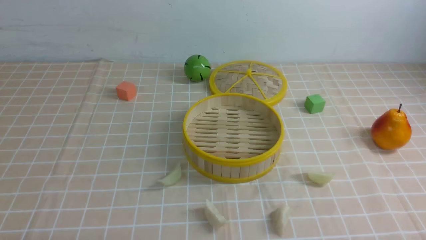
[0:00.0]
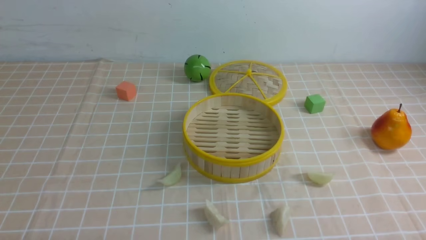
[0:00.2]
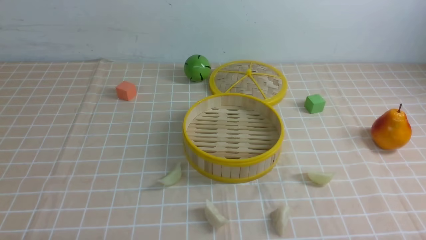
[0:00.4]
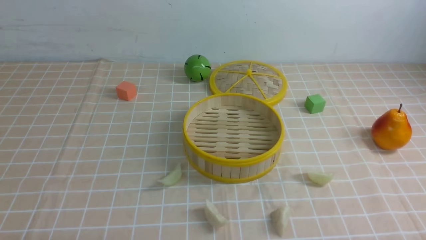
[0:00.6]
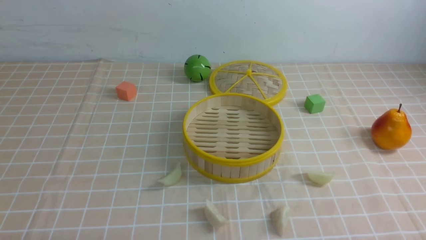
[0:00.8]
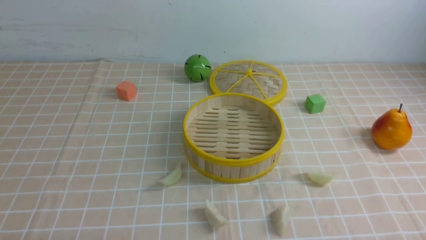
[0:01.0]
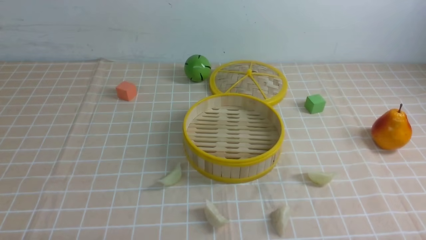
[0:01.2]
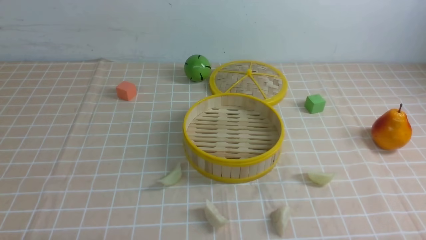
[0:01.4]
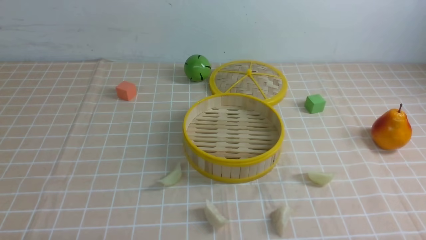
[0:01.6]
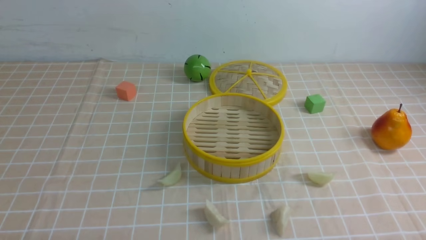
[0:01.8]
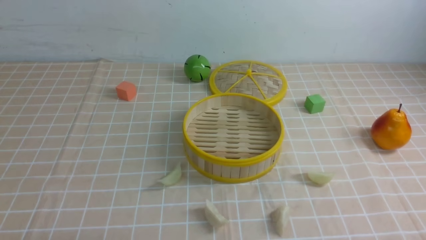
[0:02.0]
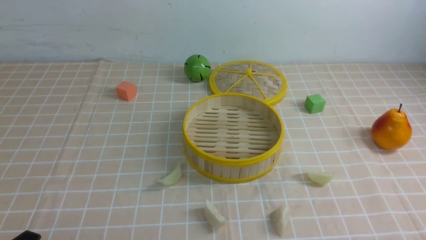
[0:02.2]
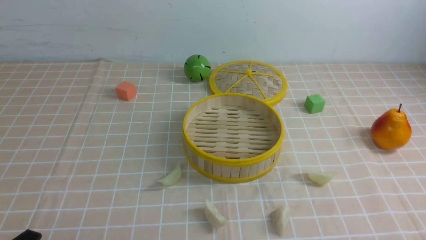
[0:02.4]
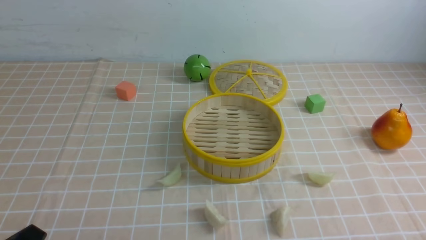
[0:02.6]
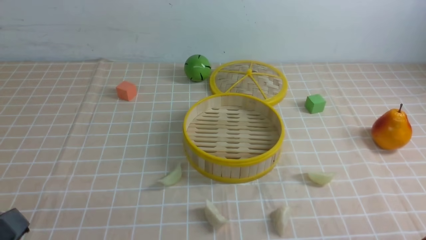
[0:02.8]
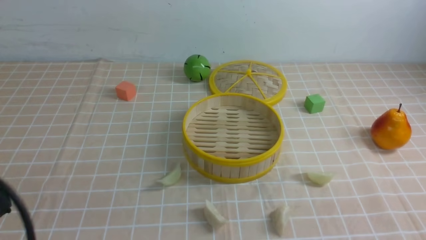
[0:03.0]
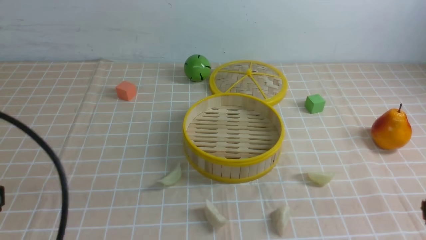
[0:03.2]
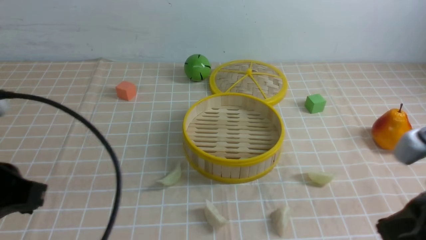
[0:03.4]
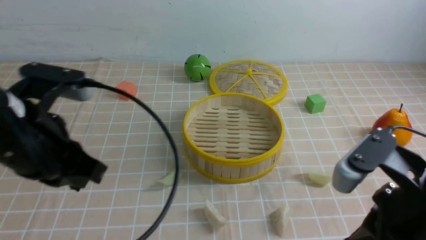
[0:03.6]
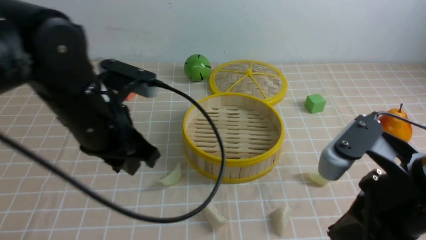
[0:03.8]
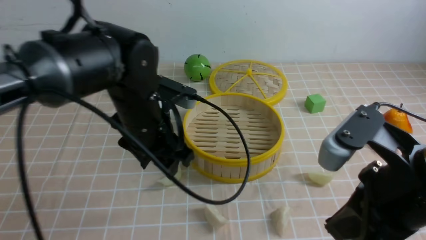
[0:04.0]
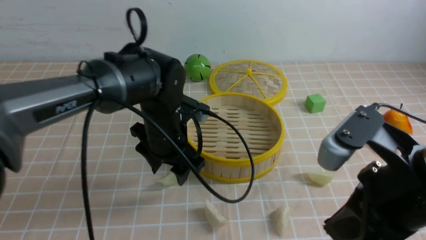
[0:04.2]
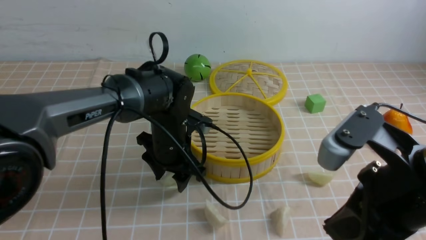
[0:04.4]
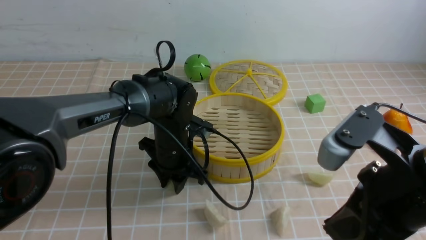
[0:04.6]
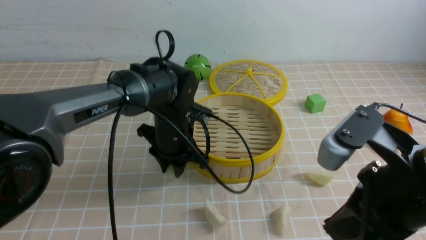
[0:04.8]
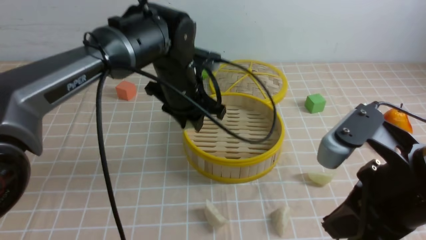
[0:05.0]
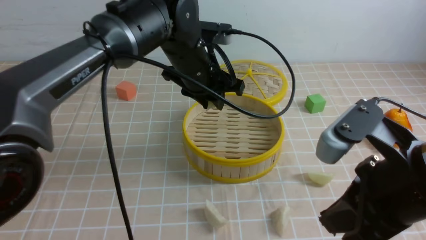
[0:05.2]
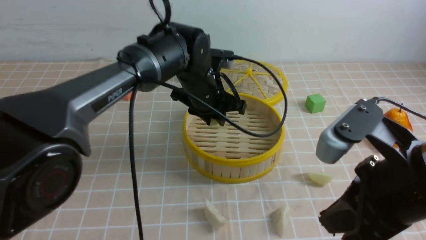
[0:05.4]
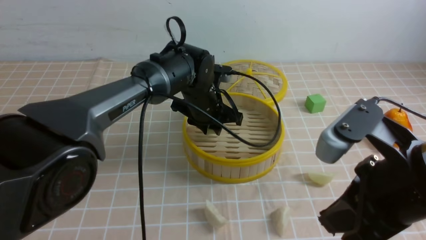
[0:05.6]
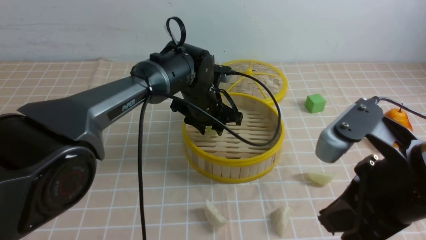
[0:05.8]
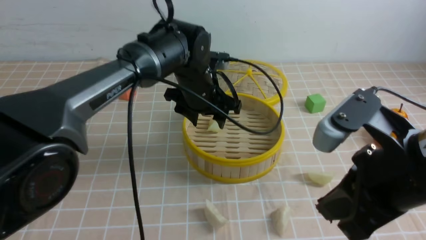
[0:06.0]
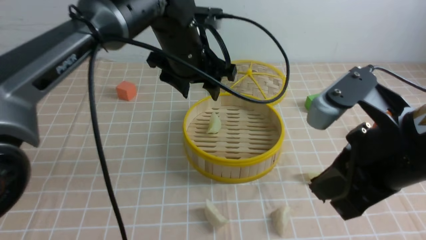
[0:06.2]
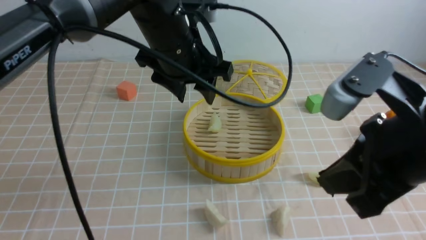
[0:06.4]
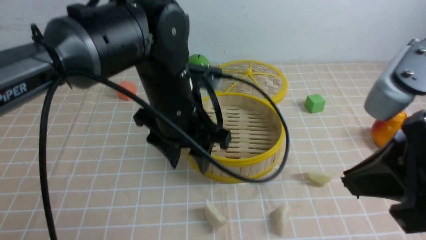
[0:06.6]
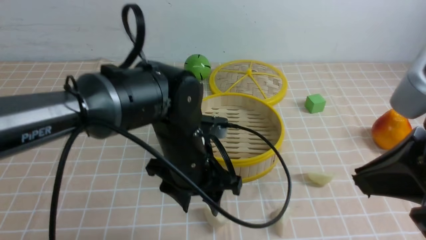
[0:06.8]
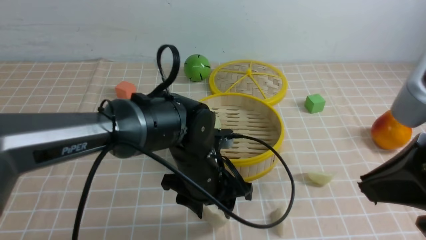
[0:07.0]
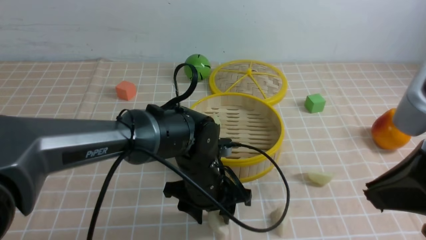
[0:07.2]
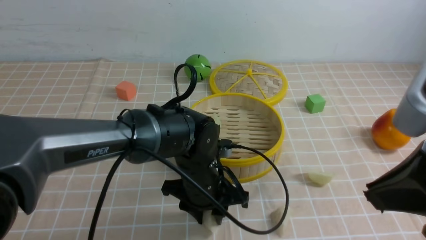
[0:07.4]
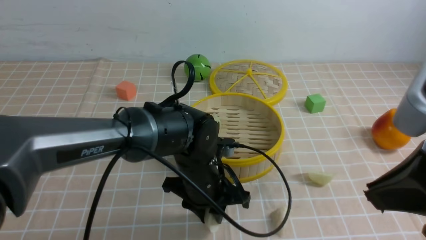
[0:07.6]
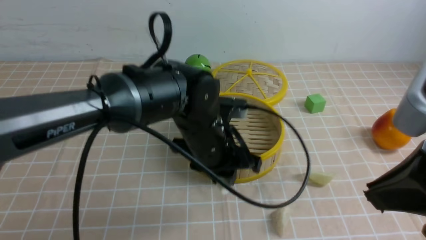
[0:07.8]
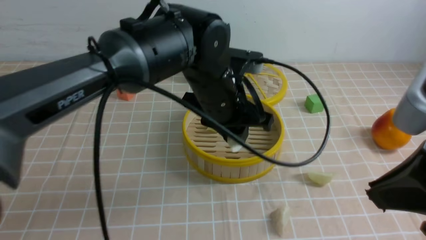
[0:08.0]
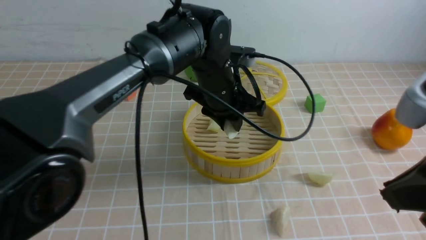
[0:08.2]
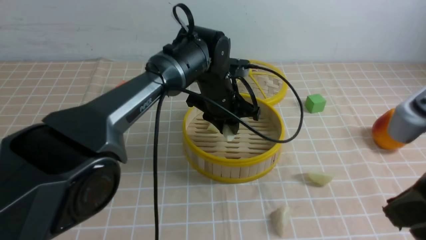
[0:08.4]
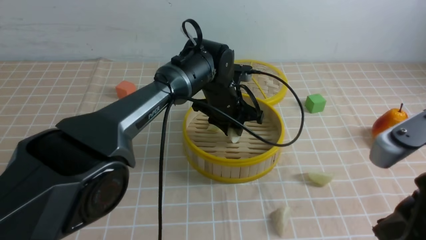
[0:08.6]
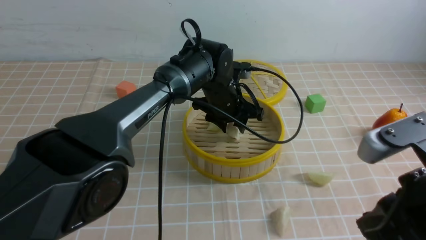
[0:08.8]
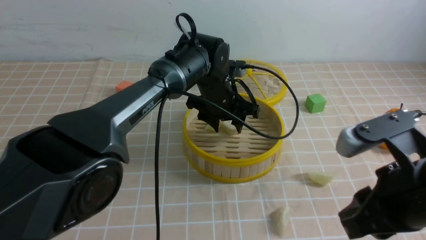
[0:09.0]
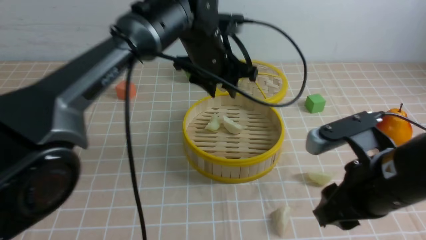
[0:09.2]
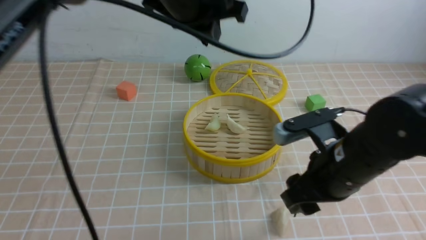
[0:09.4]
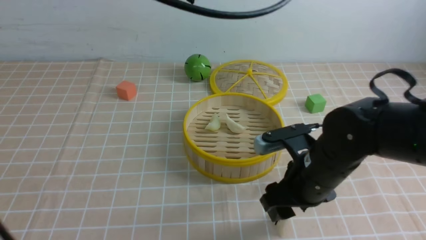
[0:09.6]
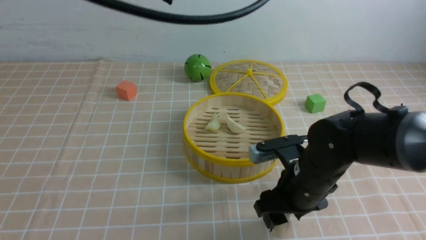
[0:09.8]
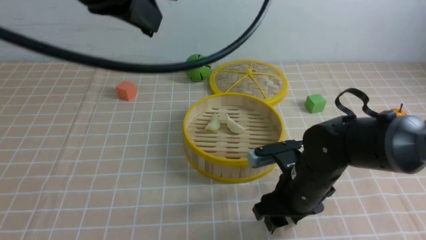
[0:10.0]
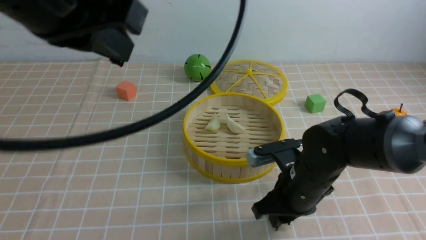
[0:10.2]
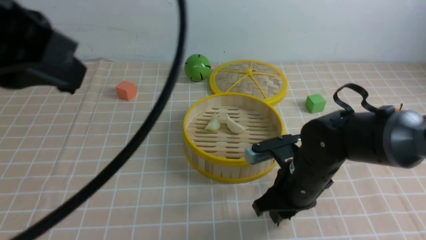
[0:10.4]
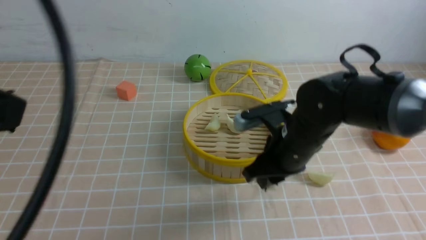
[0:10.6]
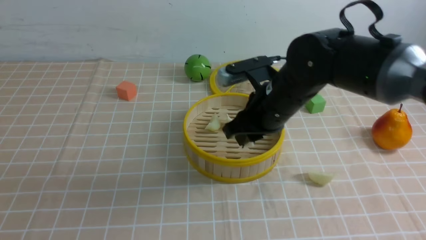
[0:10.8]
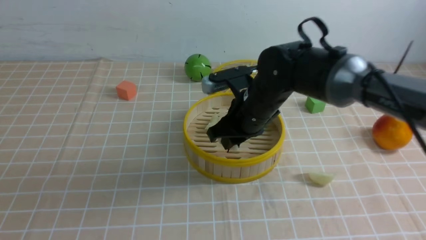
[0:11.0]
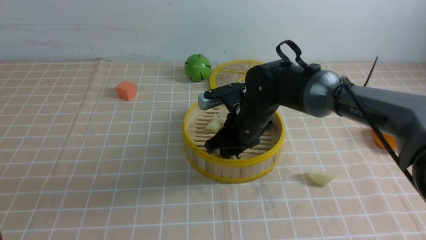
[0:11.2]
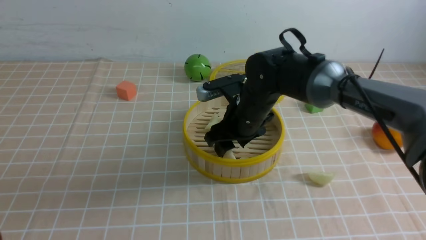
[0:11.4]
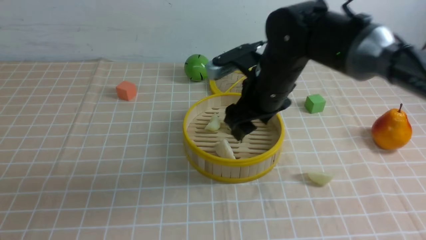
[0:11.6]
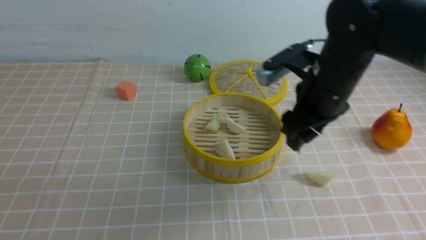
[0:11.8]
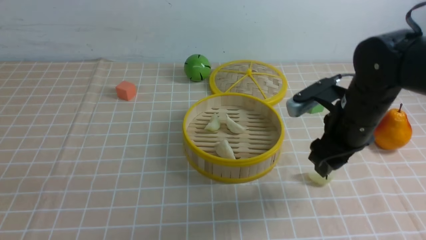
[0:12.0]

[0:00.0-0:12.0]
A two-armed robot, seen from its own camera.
Task of the whole recording: put the dumplings into the steamer on the table with the brown tablecloth.
Step, 0:00.0 to 0:04.6: use the left arm to grab a dumpling.
Step, 0:04.8 to 0:06.0: use the left arm to put the dumpling into the steamer.
Step, 0:06.2 to 0:07.4: use the left arm to grab a dumpling.
Step, 0:07.6 to 0:09.0: use the left arm to put the dumpling into the steamer.
Step, 0:09.2 to 0:10.2: use the right arm to grab a dumpling.
Step, 0:10.4 to 0:11.4: use the right arm to put the dumpling into the steamer.
0:01.6 to 0:03.0: The left gripper is displaced upward by about 15 cm, and closes its fingers.
0:03.0 to 0:04.4: The left gripper heads forward and to the right, covering some 35 cm, and opens up. The right gripper goes approximately 15 cm forward, to the left and upward.
0:04.4 to 0:06.0: The left gripper heads forward and upward, covering roughly 10 cm, and closes and opens again.
0:06.0 to 0:07.6: The left gripper shifts about 15 cm backward and downward, while the right gripper goes approximately 5 cm upward.
0:07.6 to 0:09.0: The left gripper shifts some 15 cm forward; the right gripper shifts some 10 cm downward.
0:09.0 to 0:10.4: The left gripper heads backward, upward and to the left, covering about 40 cm, and closes its fingers, while the right gripper travels forward, downward and to the left by some 20 cm, and opens and closes again.
0:10.4 to 0:12.0: The left gripper travels backward, to the left and downward by some 15 cm. Meanwhile the right gripper shifts roughly 10 cm upward and forward, and opens.

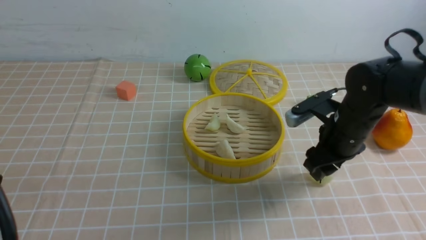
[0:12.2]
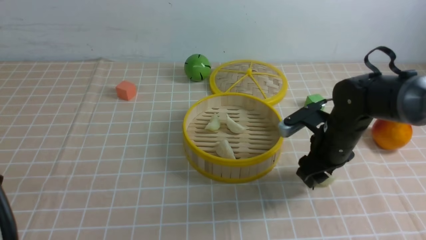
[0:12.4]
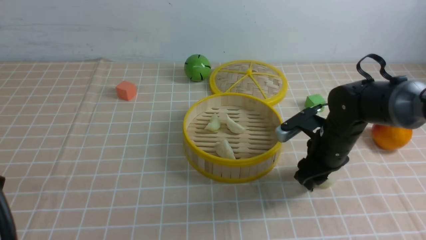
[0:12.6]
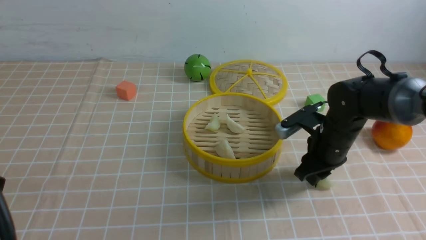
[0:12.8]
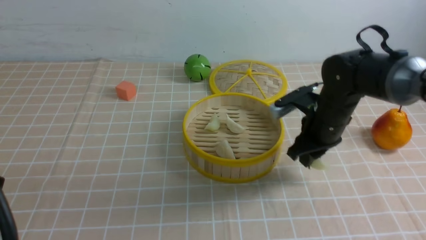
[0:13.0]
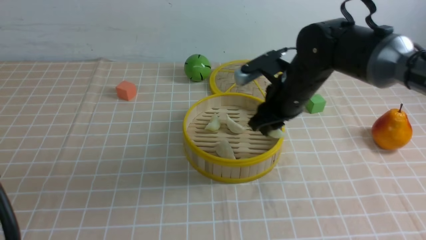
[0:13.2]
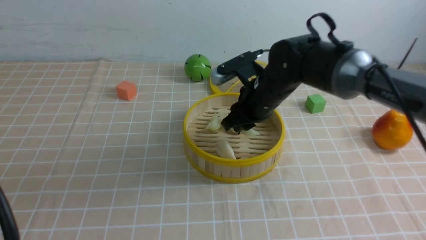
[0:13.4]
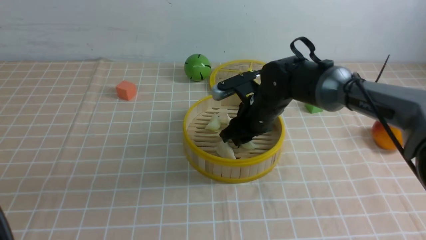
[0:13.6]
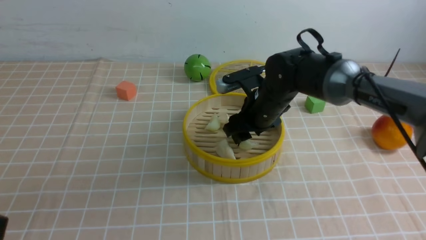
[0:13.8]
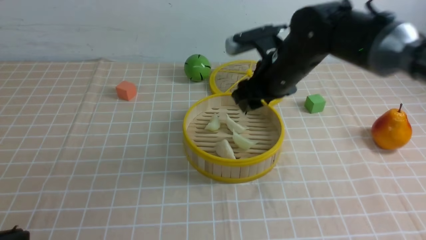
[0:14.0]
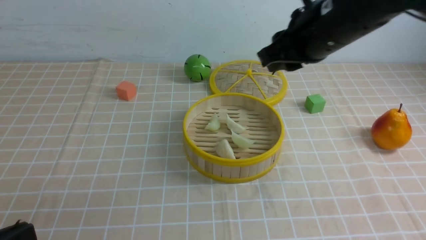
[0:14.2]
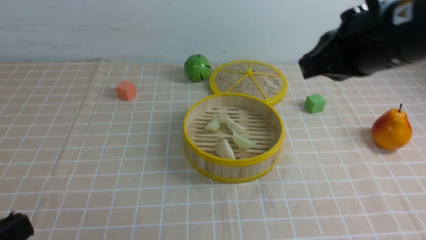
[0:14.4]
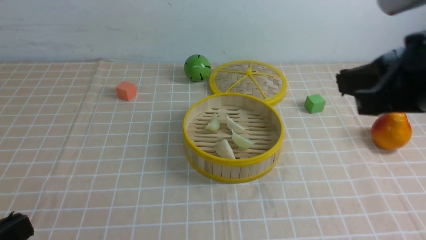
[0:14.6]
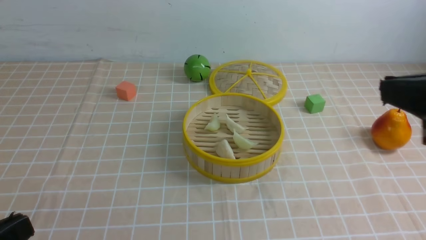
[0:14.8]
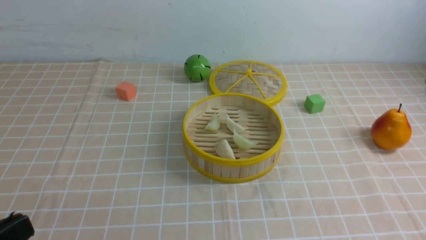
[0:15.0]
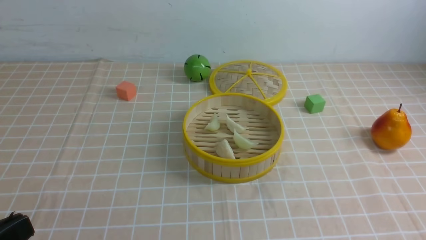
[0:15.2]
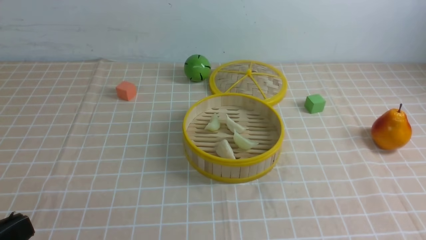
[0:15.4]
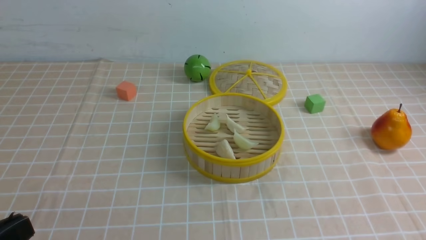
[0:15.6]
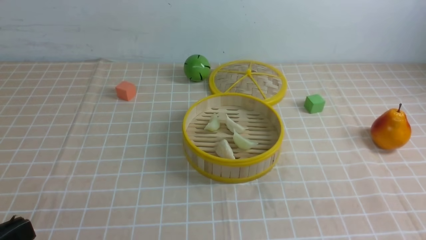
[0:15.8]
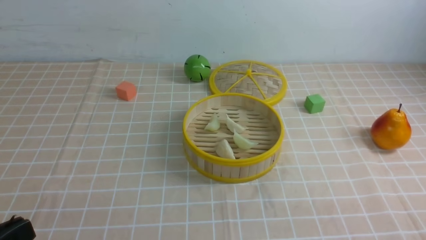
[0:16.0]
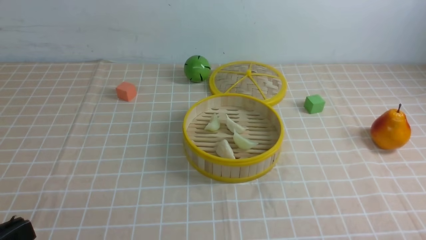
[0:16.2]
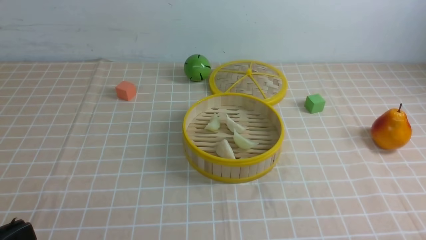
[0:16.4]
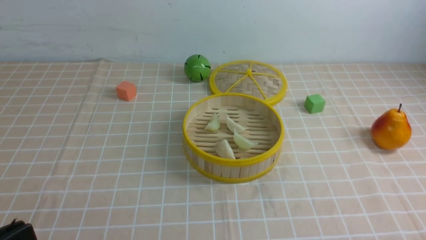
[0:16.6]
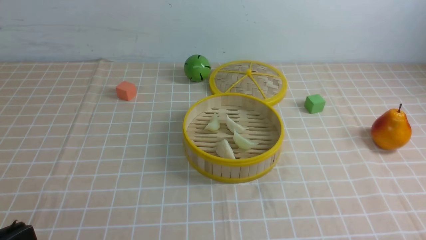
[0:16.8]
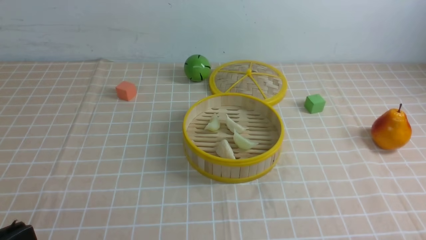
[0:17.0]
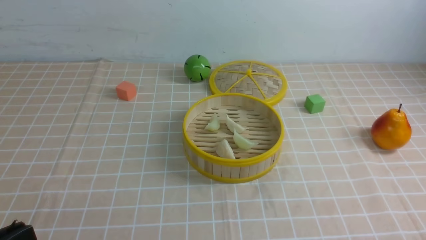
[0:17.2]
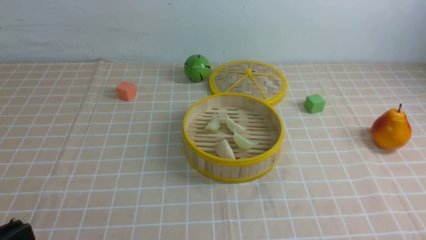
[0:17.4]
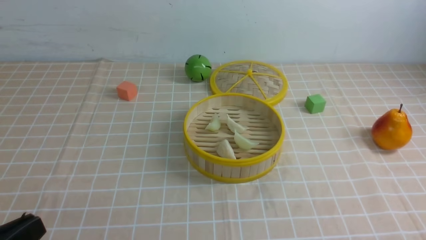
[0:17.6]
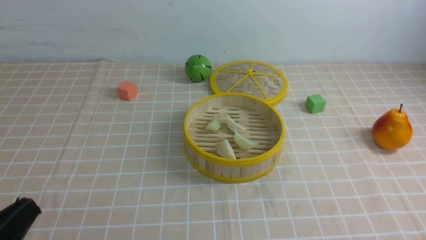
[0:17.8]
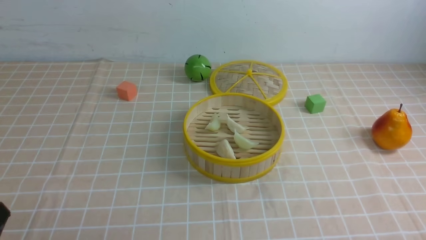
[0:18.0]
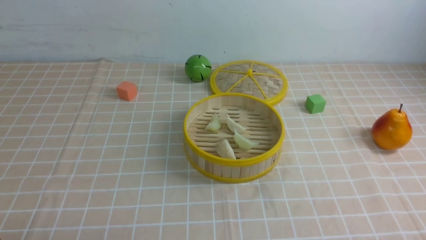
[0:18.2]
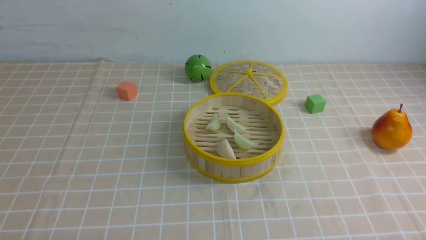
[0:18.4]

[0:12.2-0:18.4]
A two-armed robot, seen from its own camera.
Task of the whole recording: put the dumplings into the steamer on the table with the brown tablecloth.
Step, 0:12.8 to 0:14.0: use the right arm to put the dumpling into the steamer.
0:12.2 to 0:13.8: The right gripper travels to the left and forward by approximately 15 cm.
0:13.8 to 0:15.4: The right gripper moves backward, upward and to the right, roughly 40 cm, and closes up, while the left gripper travels downward by some 10 cm.
